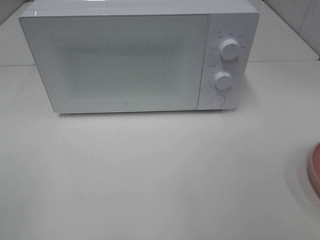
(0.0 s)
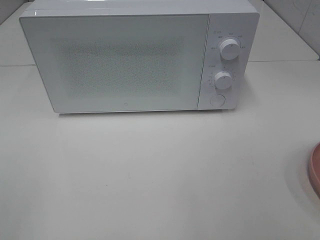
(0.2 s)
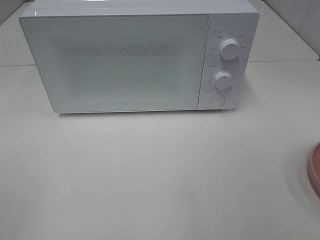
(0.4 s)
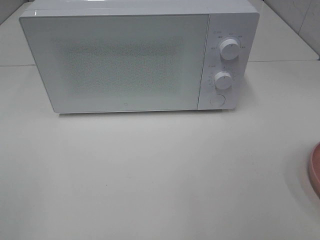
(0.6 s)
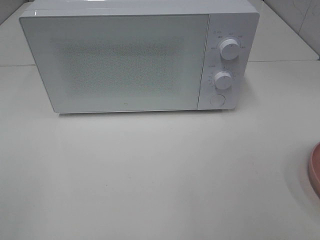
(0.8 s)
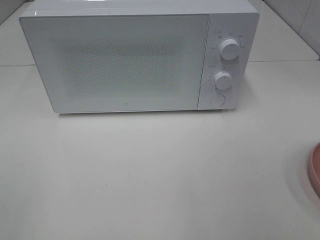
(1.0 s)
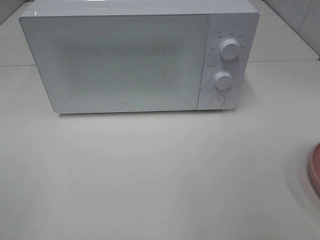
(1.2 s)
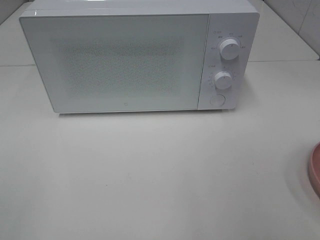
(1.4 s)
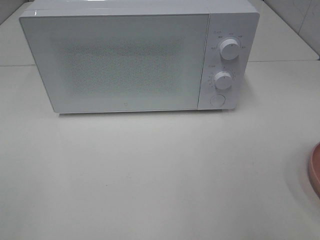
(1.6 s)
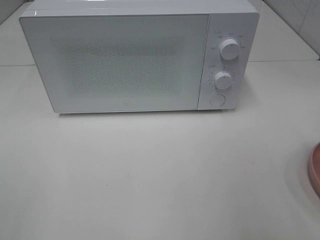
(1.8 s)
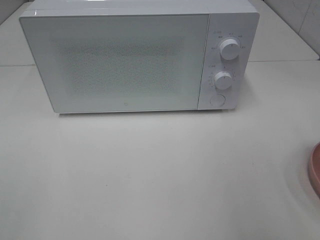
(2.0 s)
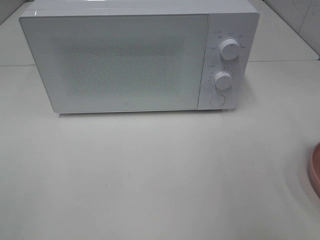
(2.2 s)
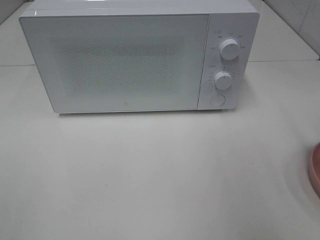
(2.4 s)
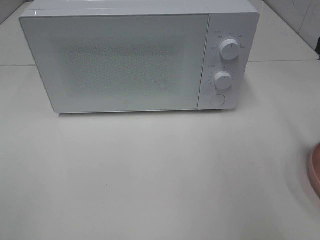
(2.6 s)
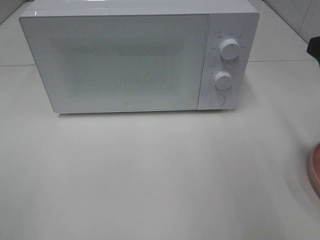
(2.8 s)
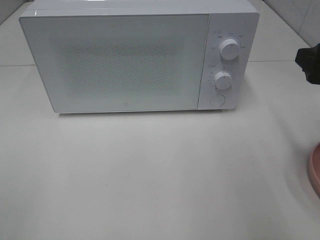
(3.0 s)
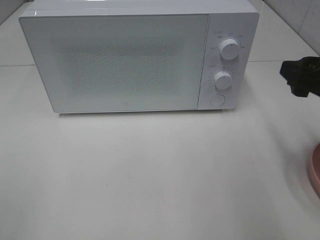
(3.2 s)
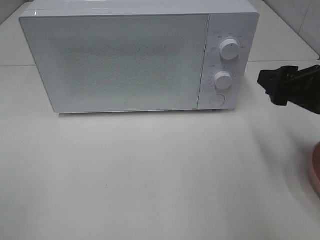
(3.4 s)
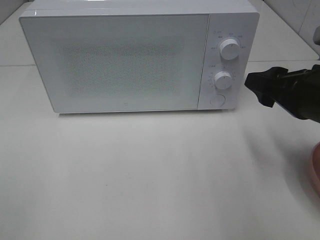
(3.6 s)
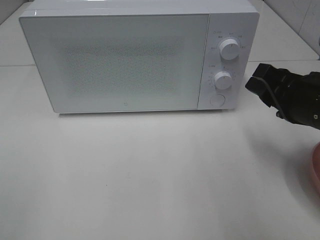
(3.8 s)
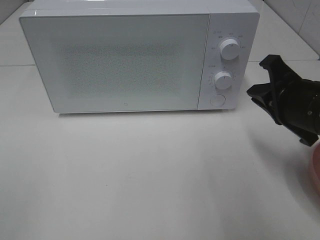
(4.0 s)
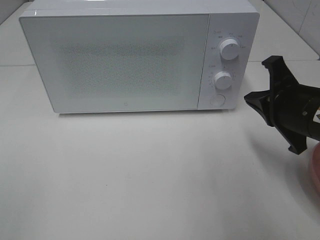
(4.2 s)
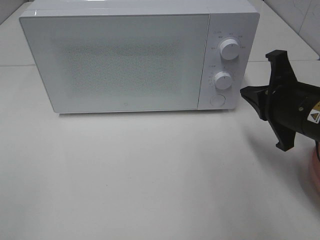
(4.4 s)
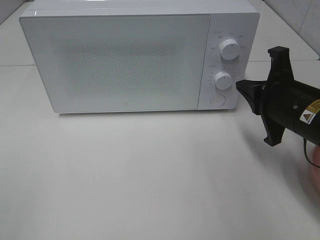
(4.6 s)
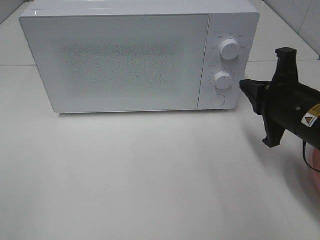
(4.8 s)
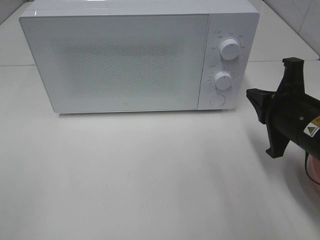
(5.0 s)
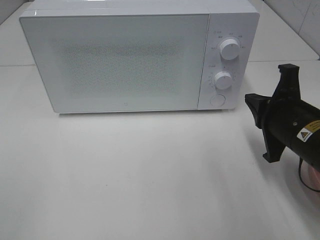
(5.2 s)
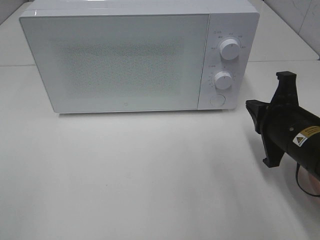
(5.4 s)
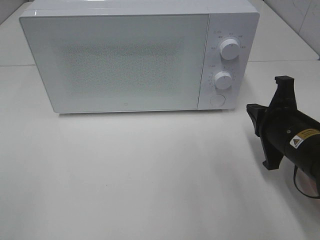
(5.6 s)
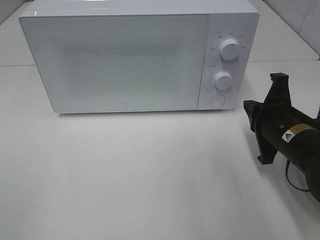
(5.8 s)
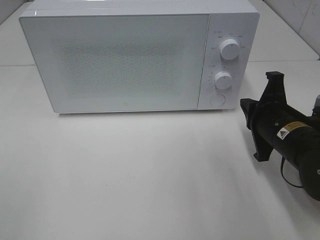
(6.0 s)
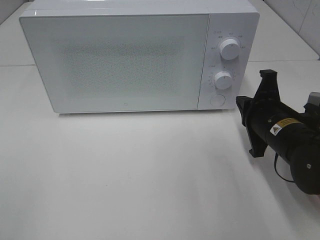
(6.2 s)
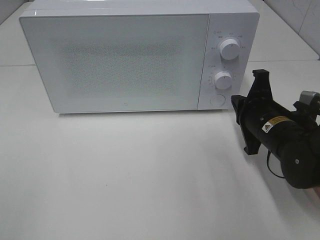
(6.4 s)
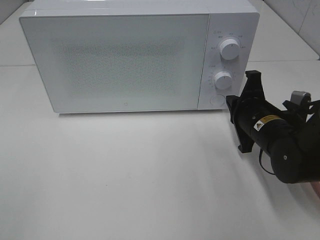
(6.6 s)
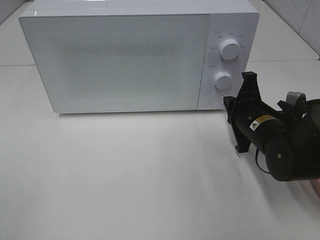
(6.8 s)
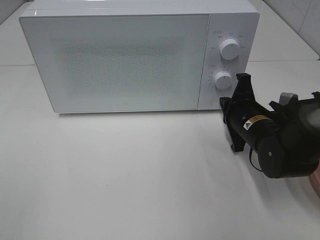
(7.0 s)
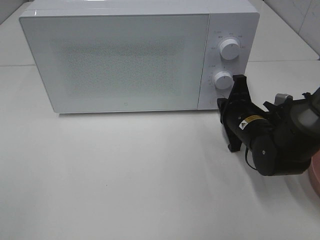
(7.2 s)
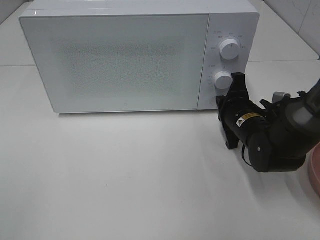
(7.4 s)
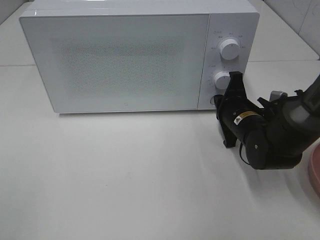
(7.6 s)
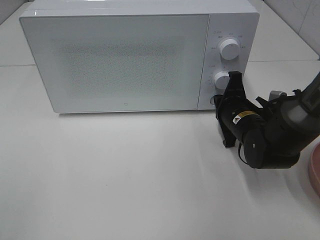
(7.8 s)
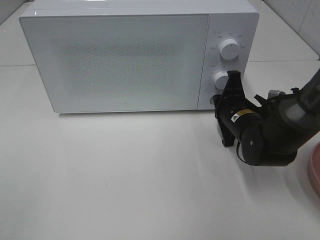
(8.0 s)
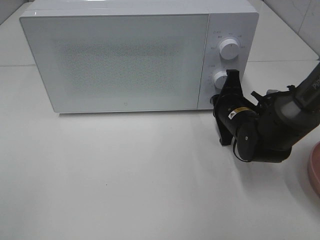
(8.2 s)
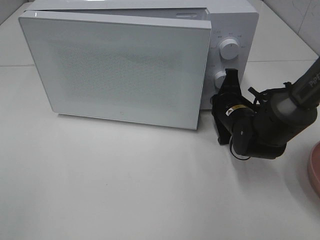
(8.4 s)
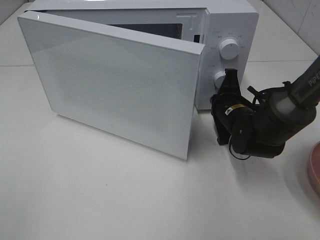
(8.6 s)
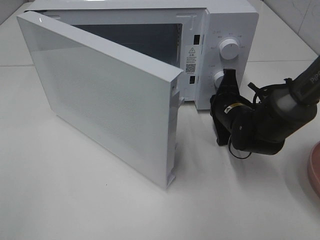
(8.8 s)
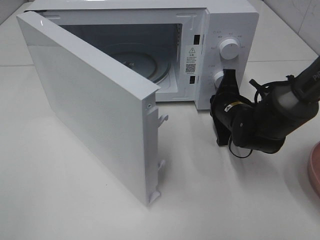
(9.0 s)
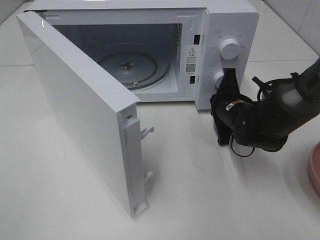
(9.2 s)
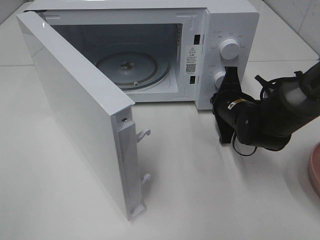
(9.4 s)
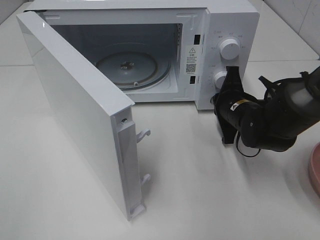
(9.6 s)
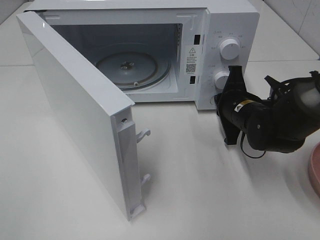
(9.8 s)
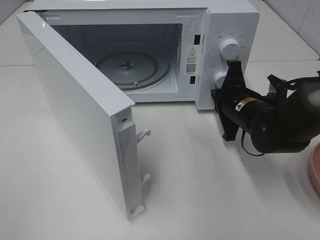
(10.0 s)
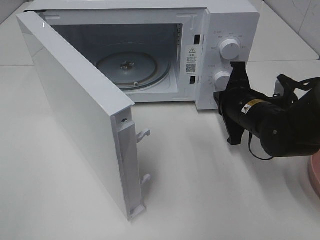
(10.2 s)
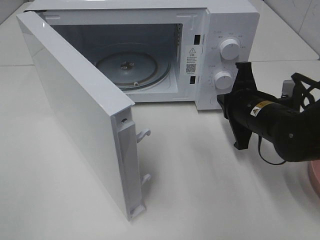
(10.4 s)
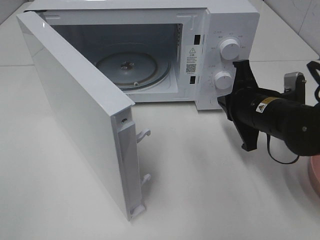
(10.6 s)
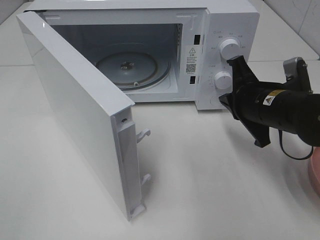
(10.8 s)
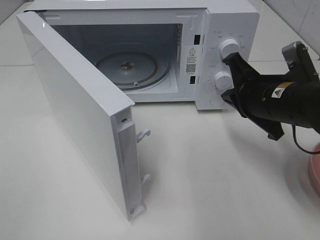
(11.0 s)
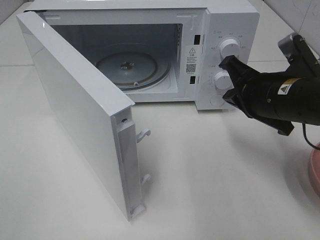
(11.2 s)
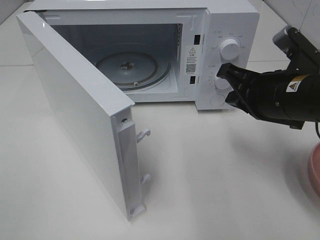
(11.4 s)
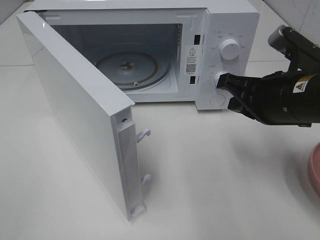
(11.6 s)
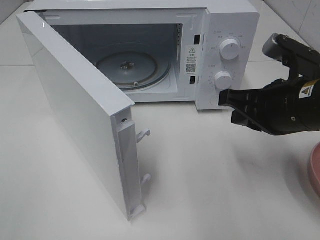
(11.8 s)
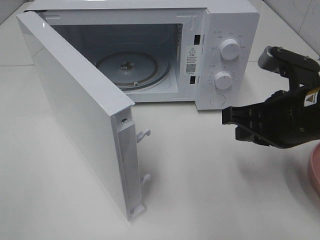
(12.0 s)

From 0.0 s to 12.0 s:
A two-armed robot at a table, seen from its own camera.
Task of the whole recording: Heat the burger.
Step, from 0.0 s to 9.8 s: Right hand: press the switch.
From 1.6 s to 3.0 s: The right gripper heads forward, covering some 15 cm.
From 3.0 s to 4.4 s: The right gripper moves downward and to the left, about 10 cm, and closes up.
From 4.4 s to 6.0 s: The right gripper is displaced downward by about 5 cm.
From 6.0 s to 7.6 s: The right gripper moves forward, some 5 cm.
From 9.0 s to 10.4 s: The right gripper travels backward by some 5 cm.
From 10.4 s to 12.0 s: The right gripper goes some 10 cm upward and backward.

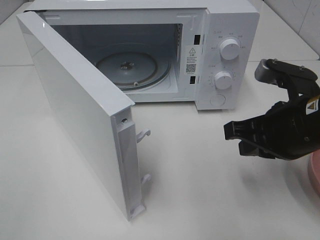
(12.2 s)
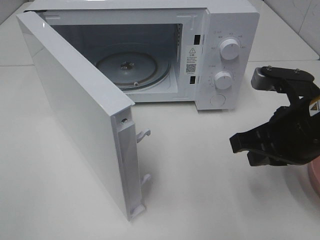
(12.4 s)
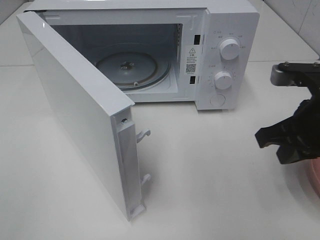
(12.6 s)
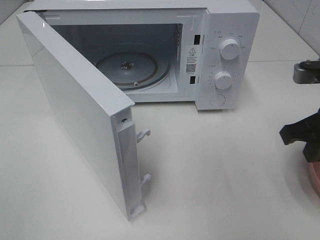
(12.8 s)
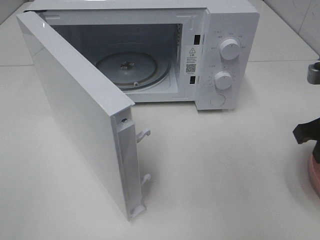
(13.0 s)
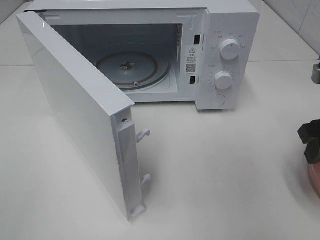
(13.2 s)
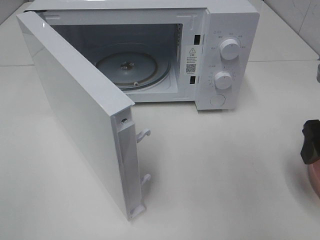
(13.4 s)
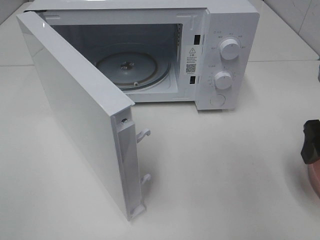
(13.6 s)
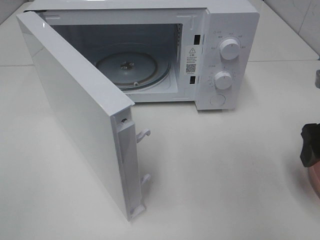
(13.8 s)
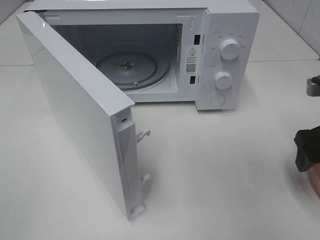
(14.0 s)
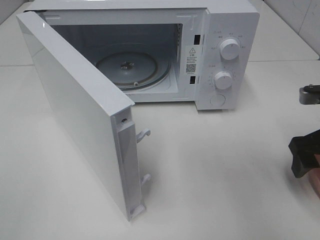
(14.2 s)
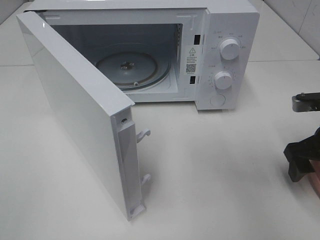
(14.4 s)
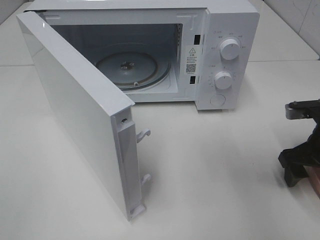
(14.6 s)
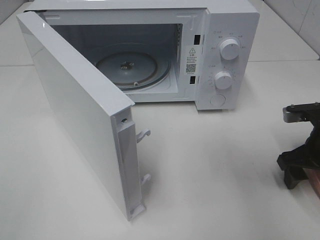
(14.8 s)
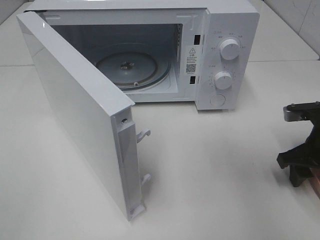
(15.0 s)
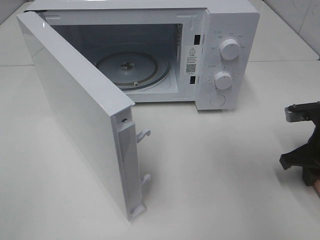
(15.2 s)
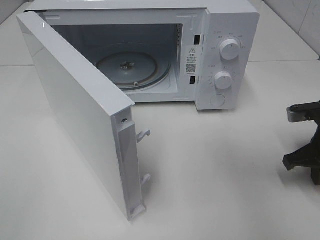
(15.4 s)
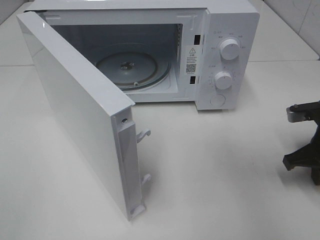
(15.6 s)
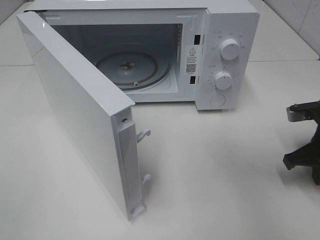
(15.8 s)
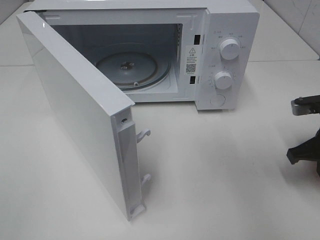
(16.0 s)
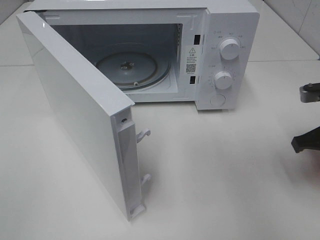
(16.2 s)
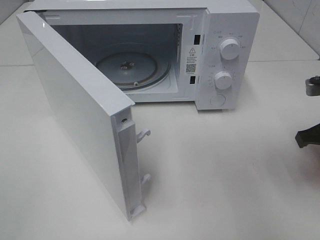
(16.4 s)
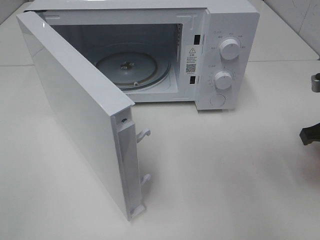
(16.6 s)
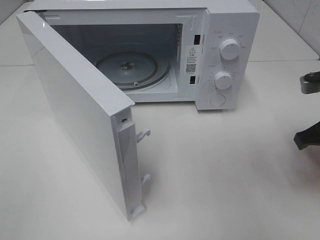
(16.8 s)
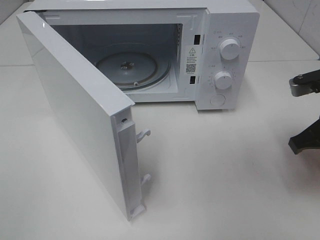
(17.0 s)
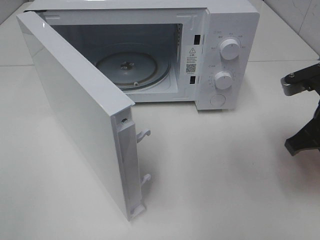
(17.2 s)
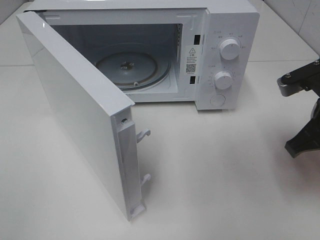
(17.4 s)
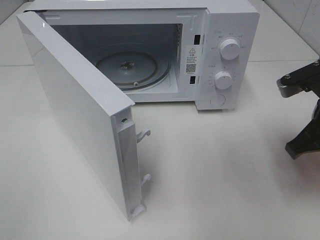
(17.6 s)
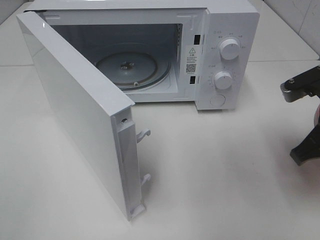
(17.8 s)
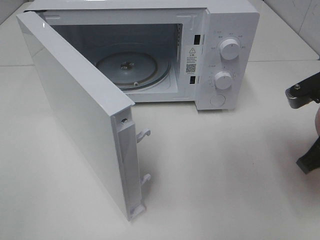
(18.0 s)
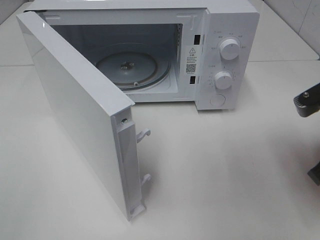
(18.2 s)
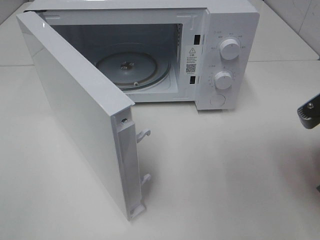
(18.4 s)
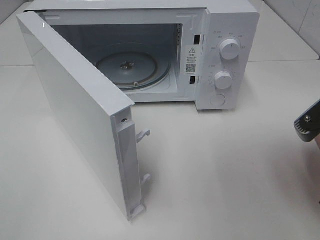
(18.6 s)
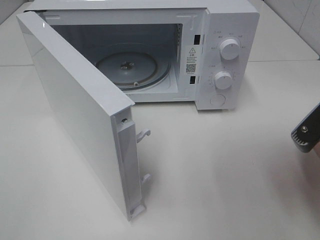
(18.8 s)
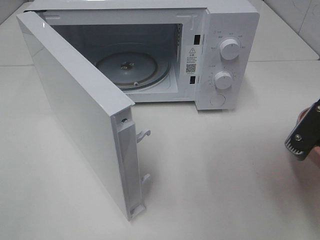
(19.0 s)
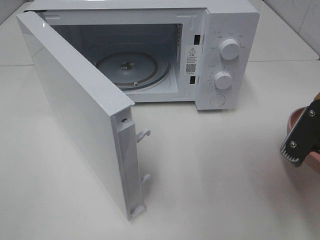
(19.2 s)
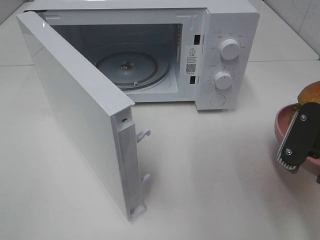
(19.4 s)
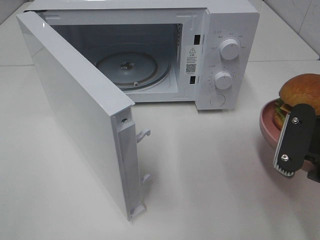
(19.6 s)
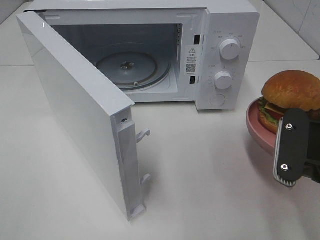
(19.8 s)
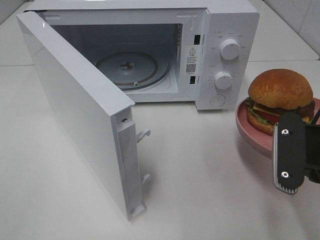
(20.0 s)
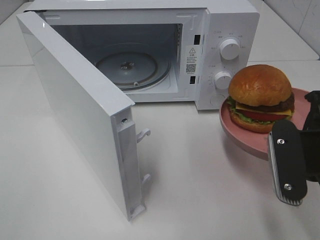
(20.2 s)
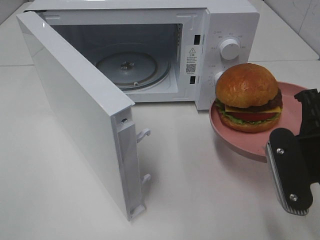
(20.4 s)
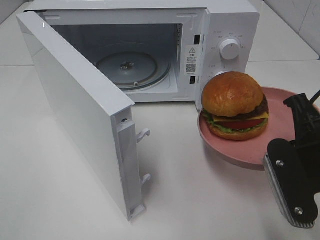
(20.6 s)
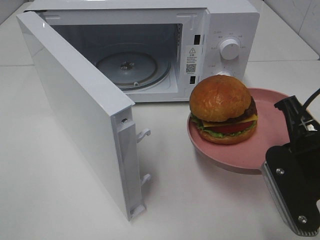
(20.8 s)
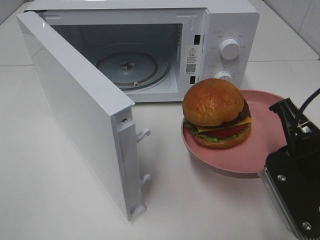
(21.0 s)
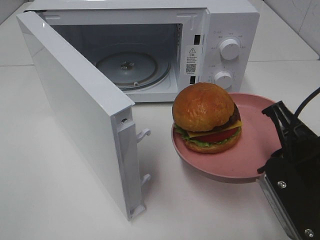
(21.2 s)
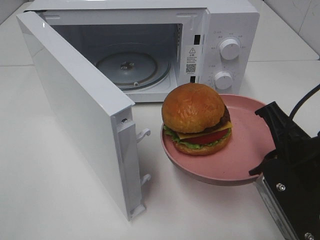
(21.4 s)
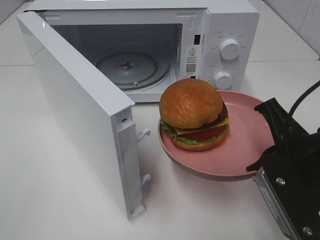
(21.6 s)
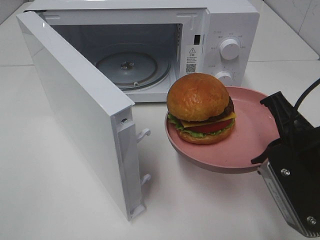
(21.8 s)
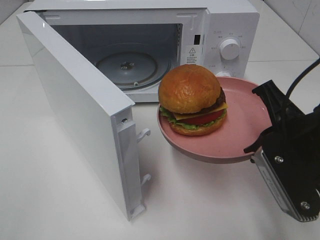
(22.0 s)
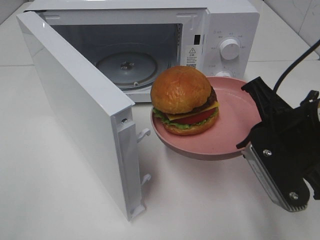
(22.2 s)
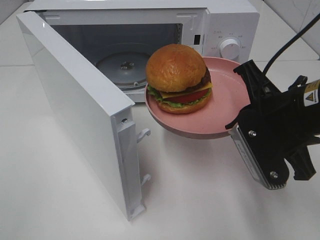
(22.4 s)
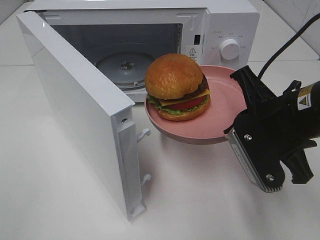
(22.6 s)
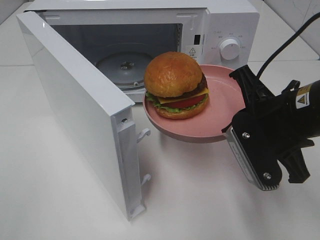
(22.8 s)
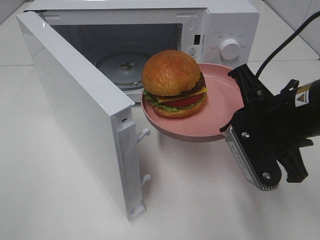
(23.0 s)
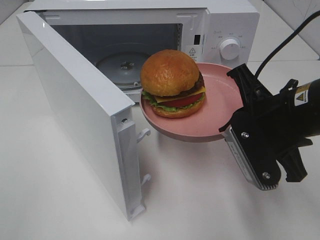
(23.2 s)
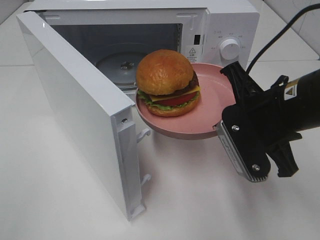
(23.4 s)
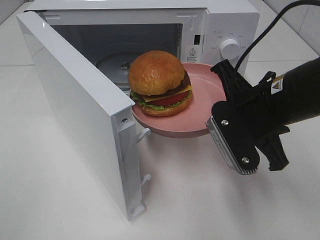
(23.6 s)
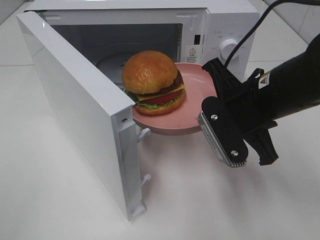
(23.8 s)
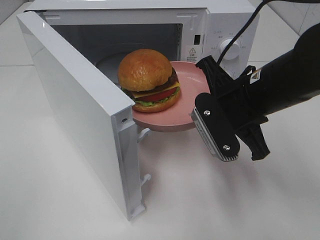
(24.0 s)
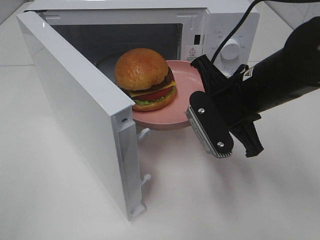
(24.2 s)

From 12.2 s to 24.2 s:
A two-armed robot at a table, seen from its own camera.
Task of the whole recording: Heat the burger.
Step, from 12.2 s to 15.4 s: Right hand: grab the plate with the hamburger.
From 12.2 s to 13.8 s: The right gripper is displaced to the right by approximately 10 cm, and opens up.
From 13.8 s to 15.2 s: The right gripper is displaced downward by about 10 cm, and closes up.
From 15.2 s to 16.6 s: The right gripper heads upward, covering some 5 cm.
From 16.6 s to 18.2 s: The right gripper is displaced backward by about 5 cm.
From 18.2 s to 19.8 s: The right gripper ends up some 5 cm from where it was.
From 21.2 s to 22.6 s: The right gripper heads forward, covering approximately 5 cm.
From 22.6 s to 24.2 s: The right gripper shifts some 5 cm forward.
